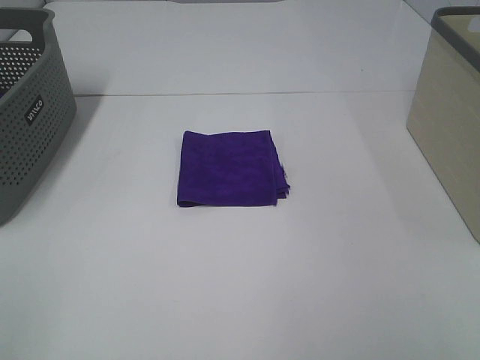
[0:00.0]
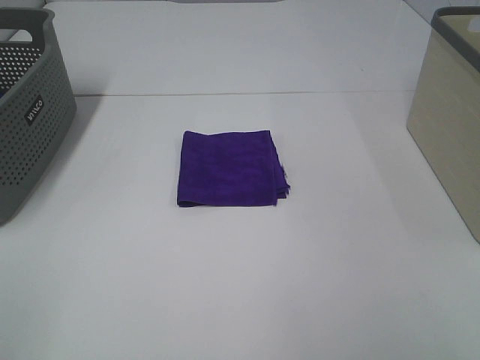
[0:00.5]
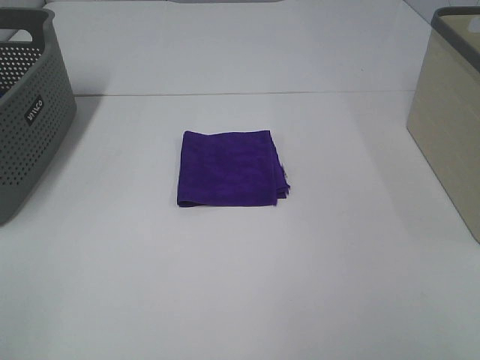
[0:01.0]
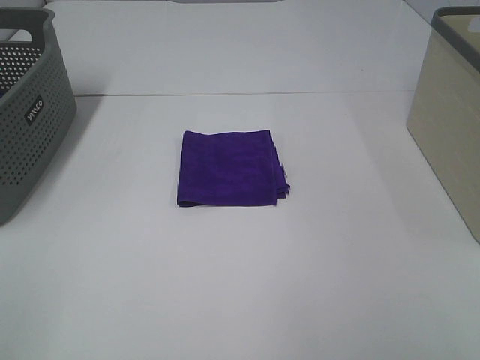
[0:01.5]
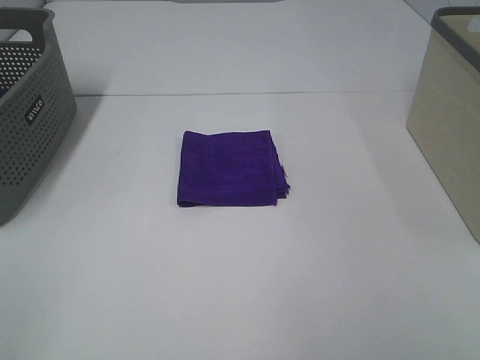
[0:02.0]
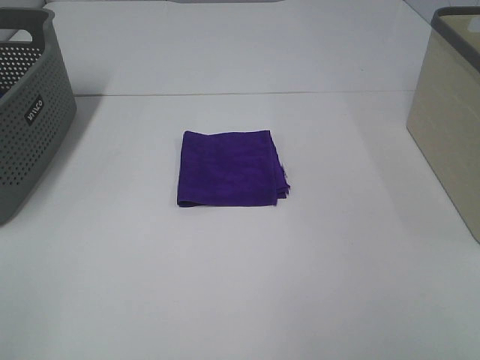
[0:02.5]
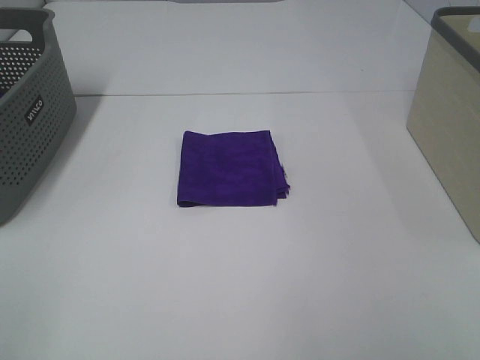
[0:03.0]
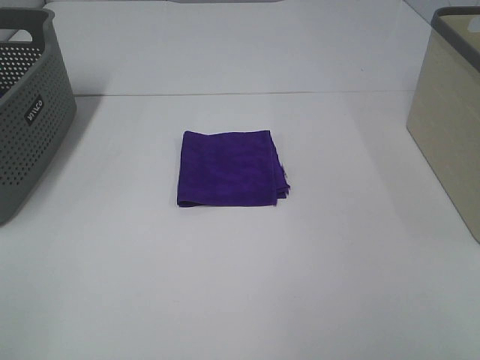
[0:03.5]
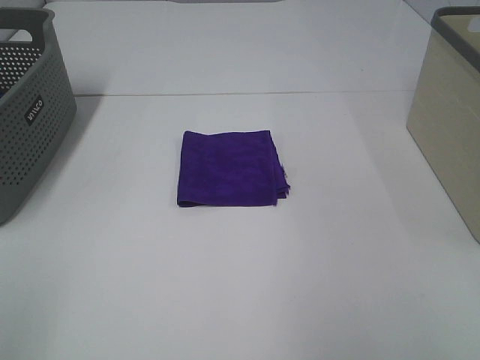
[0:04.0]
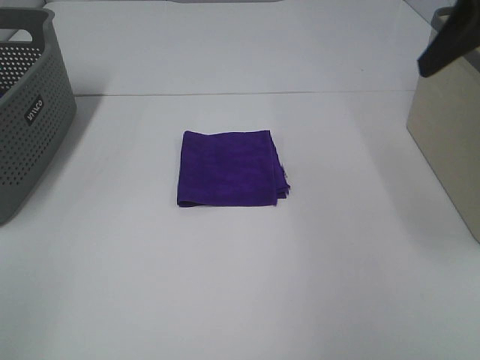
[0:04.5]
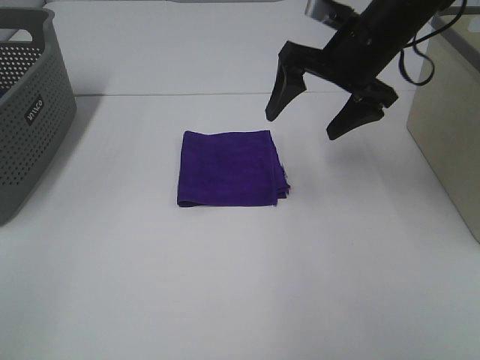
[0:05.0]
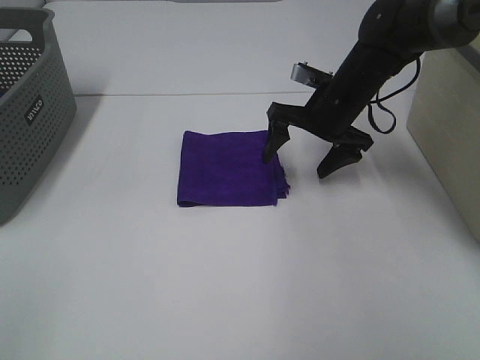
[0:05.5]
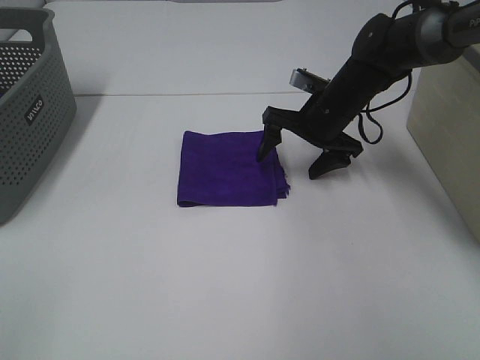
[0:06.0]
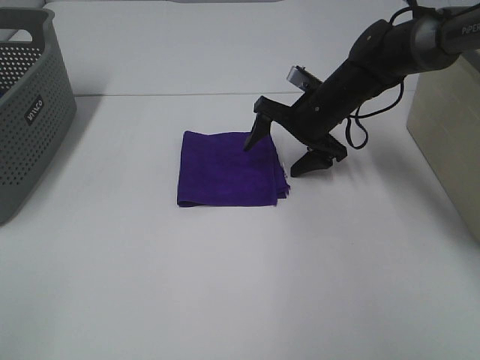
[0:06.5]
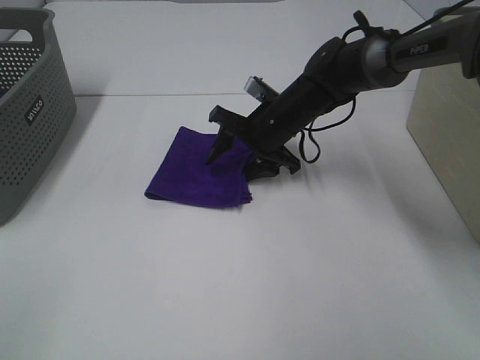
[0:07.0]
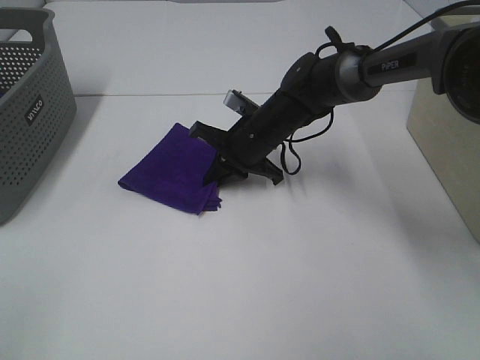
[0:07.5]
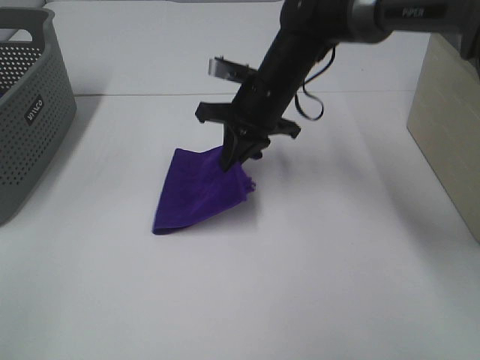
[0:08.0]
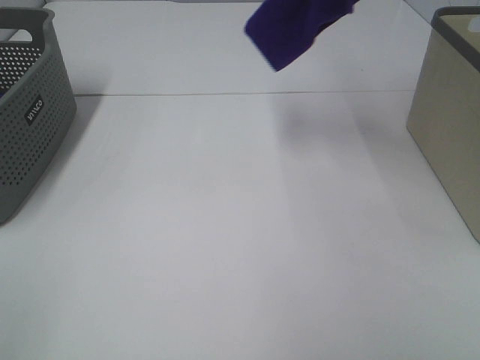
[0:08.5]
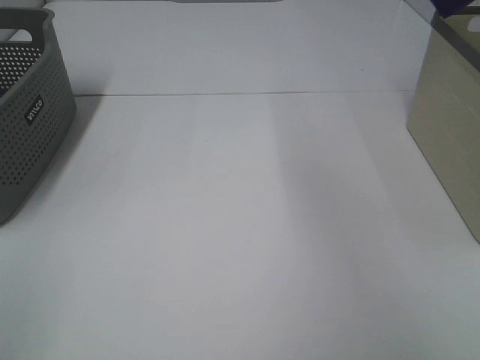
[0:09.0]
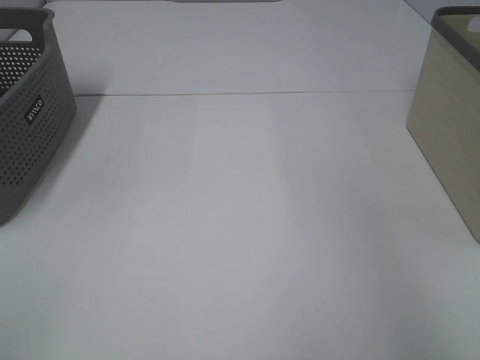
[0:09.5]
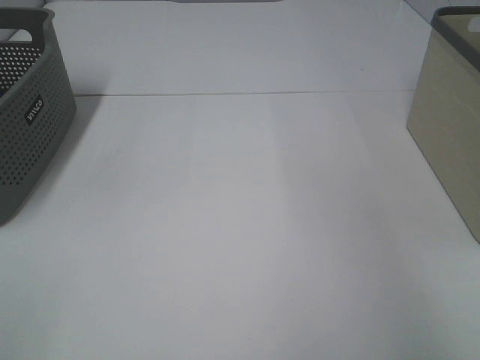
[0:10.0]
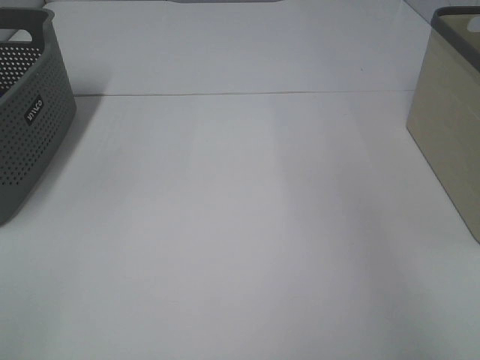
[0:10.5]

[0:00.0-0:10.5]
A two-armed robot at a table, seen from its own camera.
Step, 0:00.0 to 0:07.0: Right hand: grab the folded purple towel.
Step, 0:07.5 to 0:10.0: Right hand: place the purple towel in right basket.
0:00.0 to 0:02.0: Neither gripper changes place.
0:04.0 to 0:06.5: The right gripper moves forward, downward and to the left, some 40 cm.
0:06.5 to 0:08.5: The right gripper heads upward, covering about 30 cm, and closes up.
0:08.5 to 0:10.5: The right gripper goes some 20 cm to the right, and opens up.

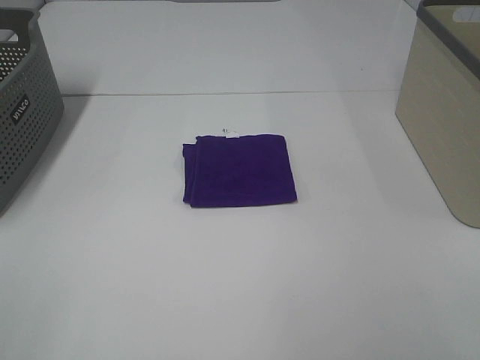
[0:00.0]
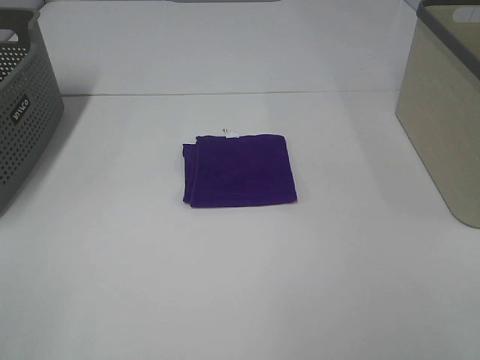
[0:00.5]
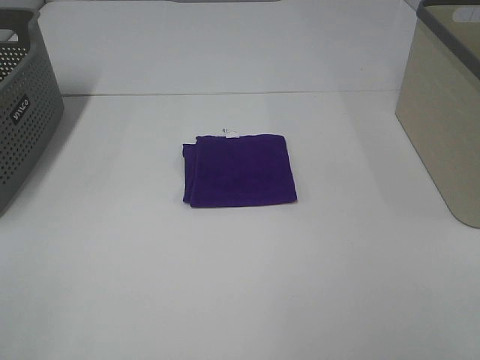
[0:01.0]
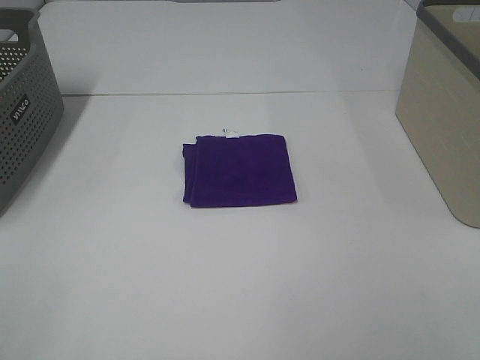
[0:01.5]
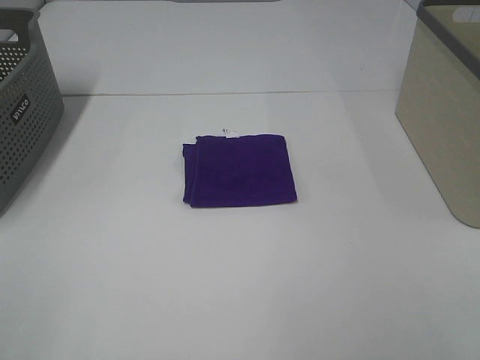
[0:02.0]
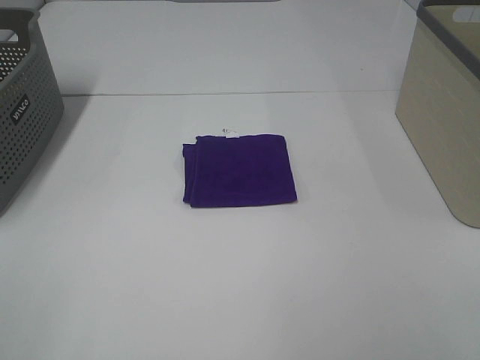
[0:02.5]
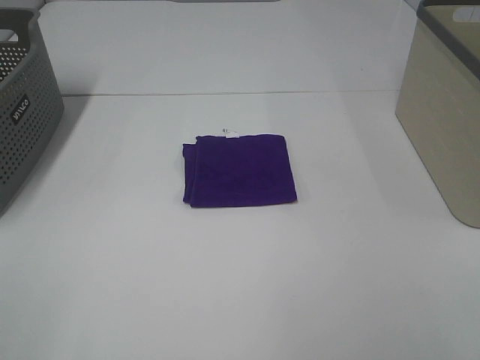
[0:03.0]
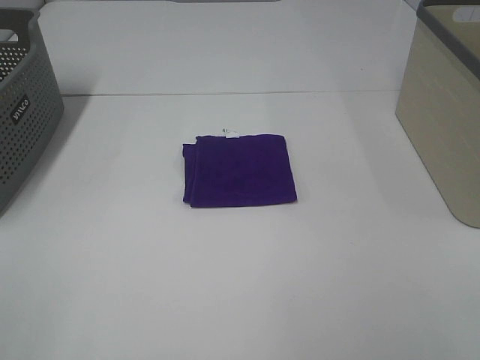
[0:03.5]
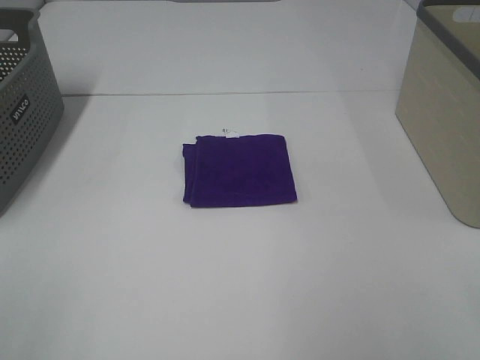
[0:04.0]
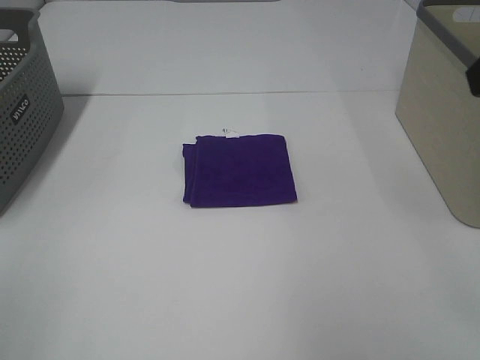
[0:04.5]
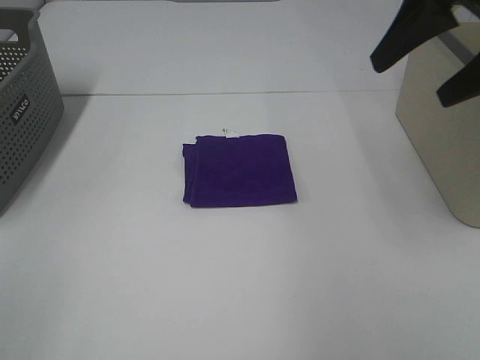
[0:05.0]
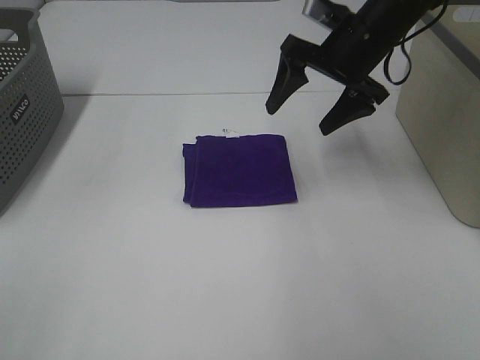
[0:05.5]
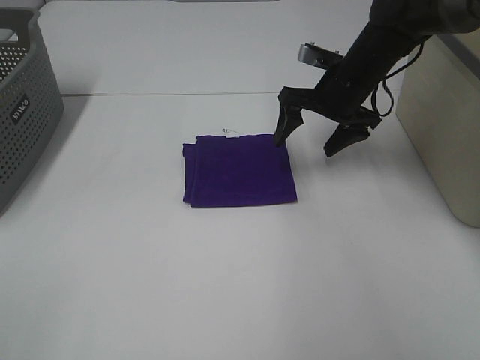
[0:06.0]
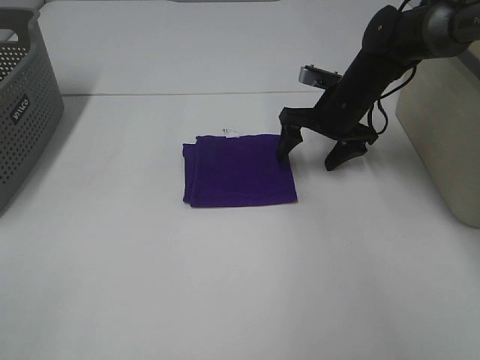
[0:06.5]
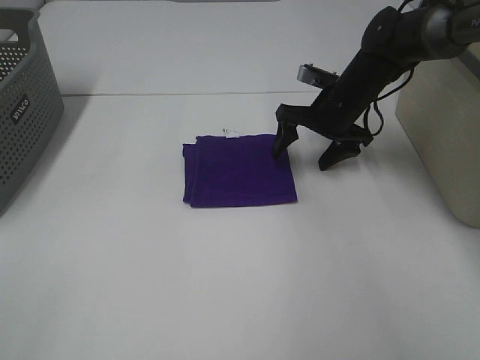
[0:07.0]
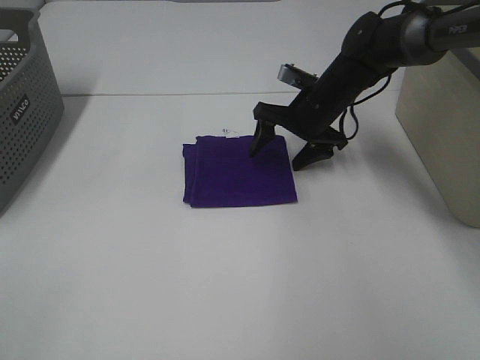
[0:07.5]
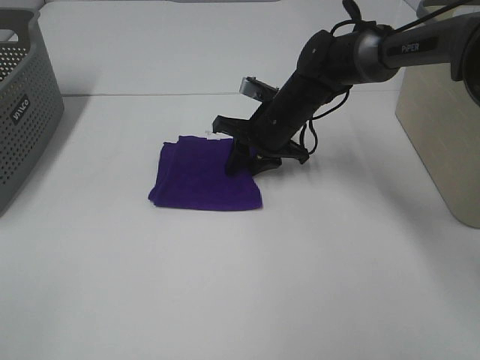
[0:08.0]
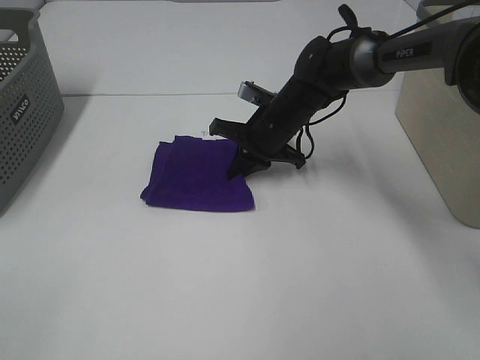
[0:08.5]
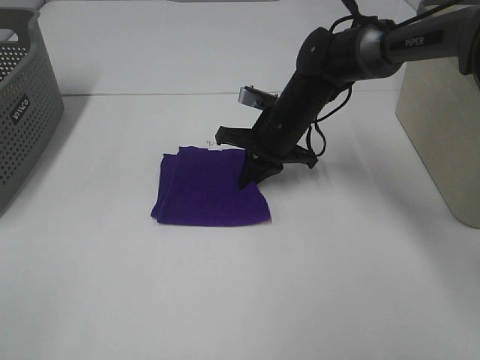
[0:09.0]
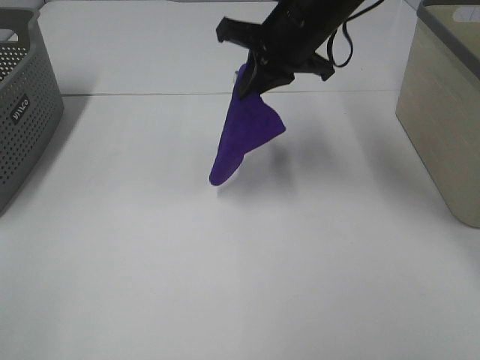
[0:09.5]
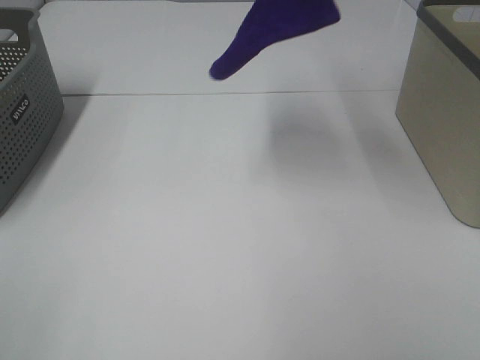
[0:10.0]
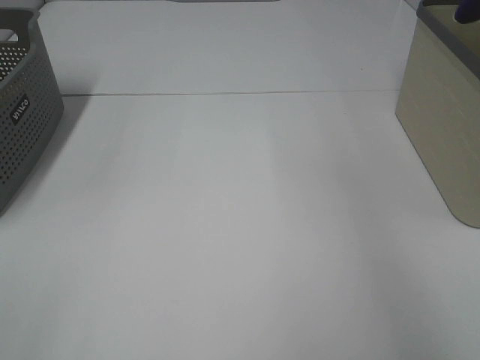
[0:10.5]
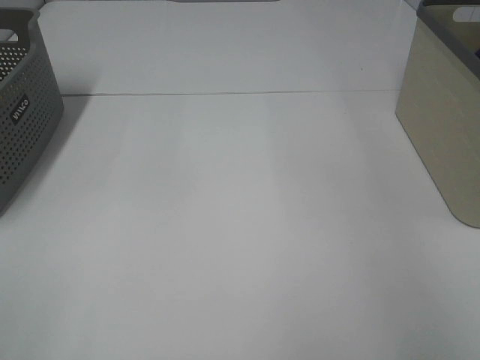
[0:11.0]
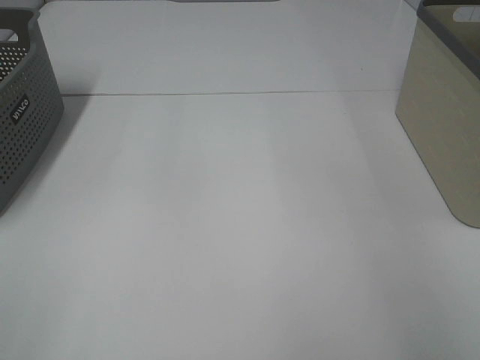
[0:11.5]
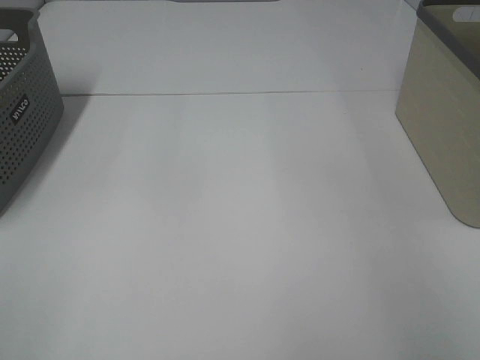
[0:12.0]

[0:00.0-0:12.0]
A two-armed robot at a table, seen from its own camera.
Step, 0:00.0 to 0:08.0: Right hand: grab the folded purple towel.
Step, 0:08.5 to 0:11.5: Right hand: place the purple towel in right basket.
0:00.0 to 0:02.0: Both grippers stay about where they are.
0:04.0 to 0:06.0: The right gripper is displaced forward and downward by some 40 cm.
0:06.0 to 0:08.0: The right gripper travels to the left and downward by approximately 10 cm, and closes.
0:08.0 to 0:10.0: The right gripper goes roughly 30 cm upward.
0:10.0 to 0:12.0: The right gripper moves to the right, some 25 cm, and opens up.

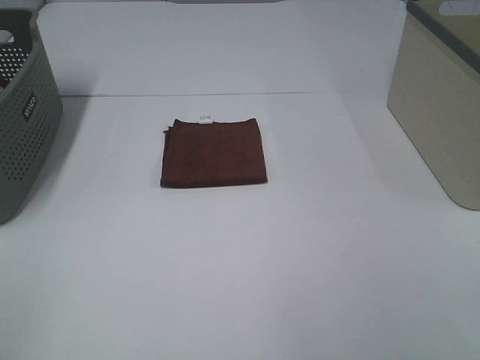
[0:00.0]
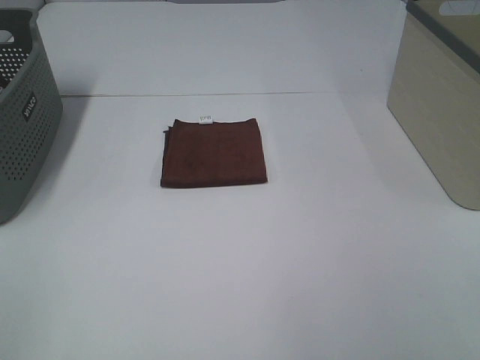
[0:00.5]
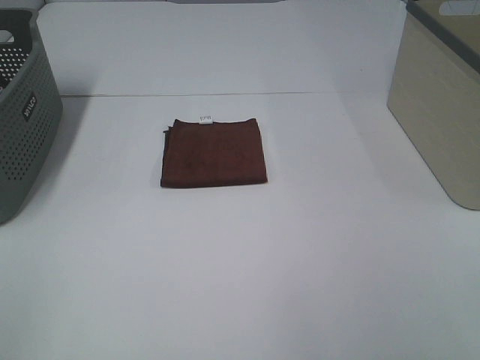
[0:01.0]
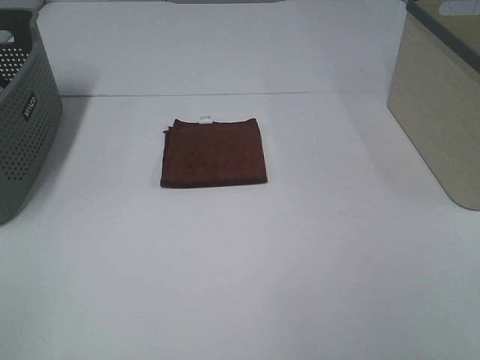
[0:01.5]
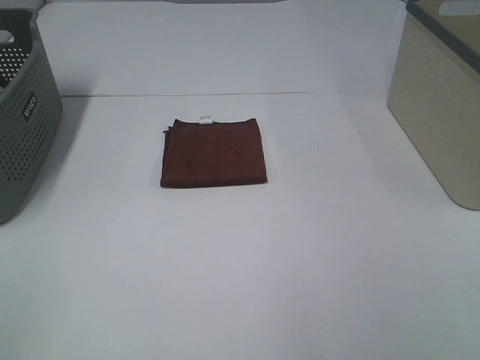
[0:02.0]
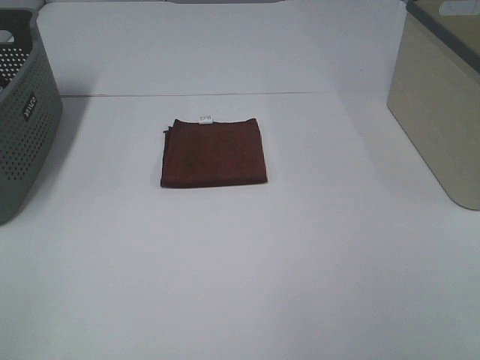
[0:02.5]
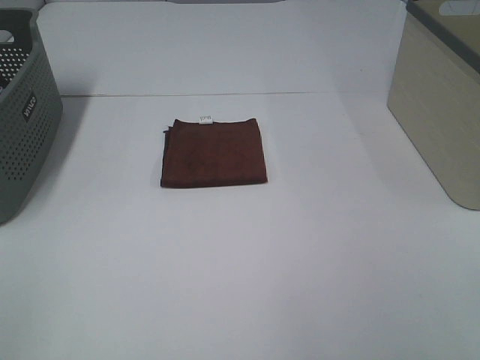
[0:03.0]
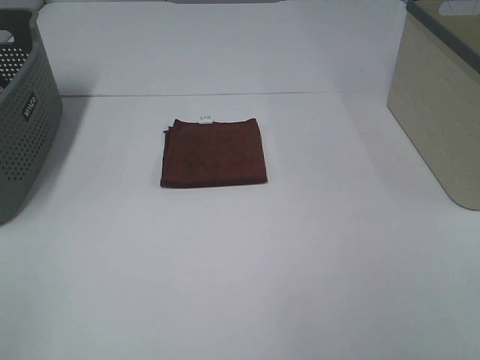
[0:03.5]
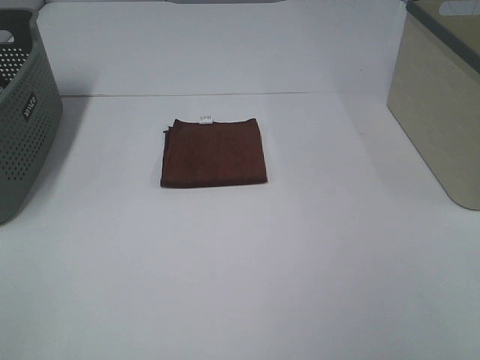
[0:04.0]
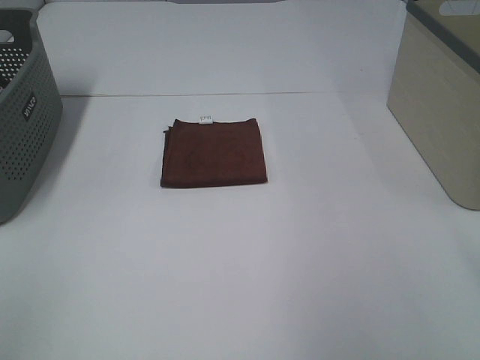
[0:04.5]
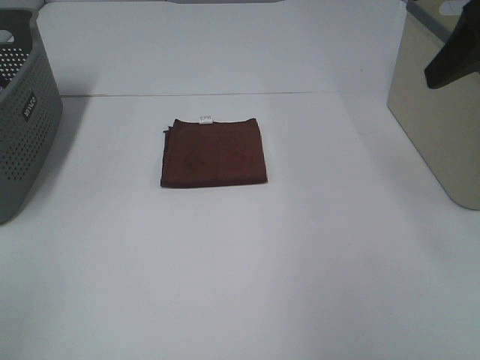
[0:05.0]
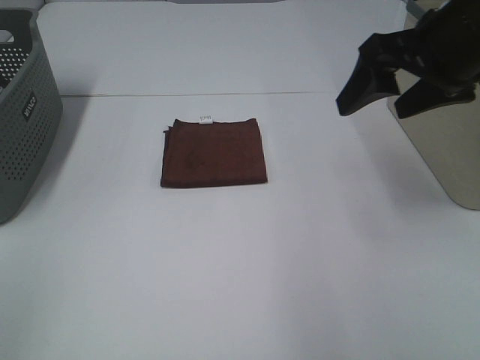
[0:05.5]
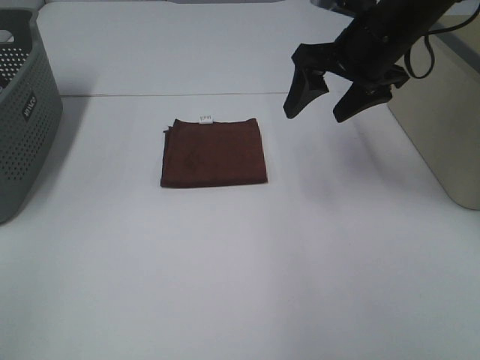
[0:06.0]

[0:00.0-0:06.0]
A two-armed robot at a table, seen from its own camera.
0:00.0 to 0:02.0: Both grippers stay put.
0:04.0 to 0:06.0: The right gripper is displaced forward by roughly 35 cm.
